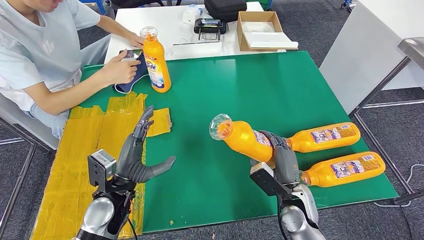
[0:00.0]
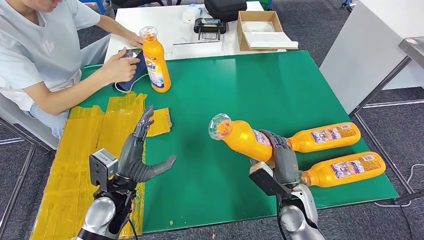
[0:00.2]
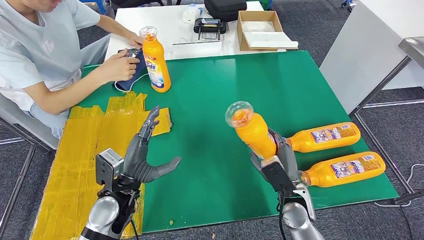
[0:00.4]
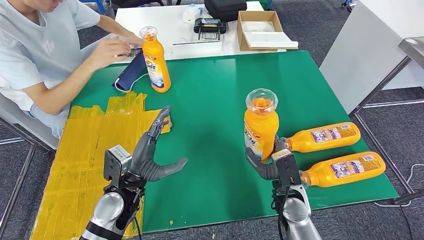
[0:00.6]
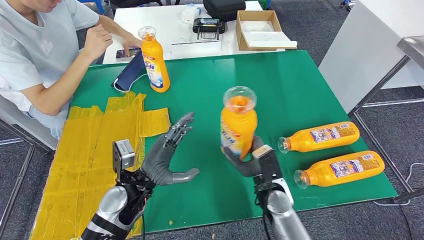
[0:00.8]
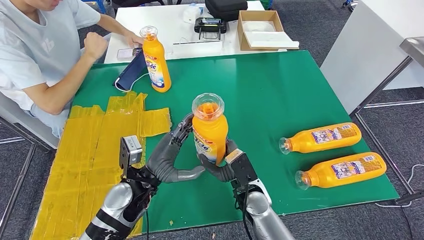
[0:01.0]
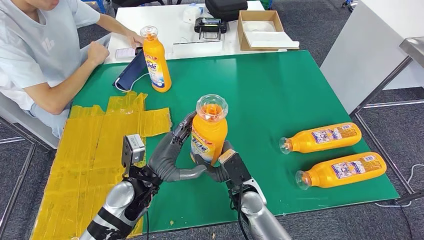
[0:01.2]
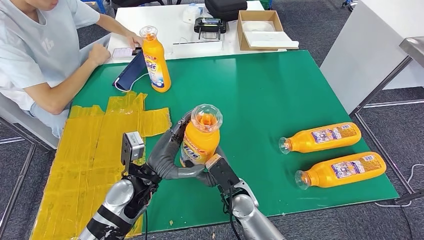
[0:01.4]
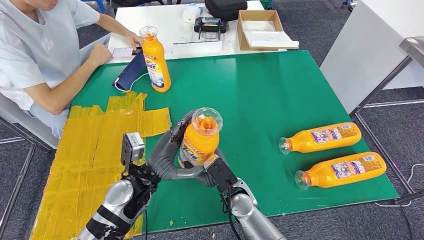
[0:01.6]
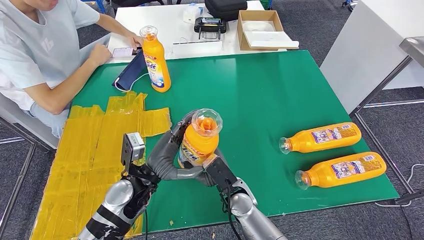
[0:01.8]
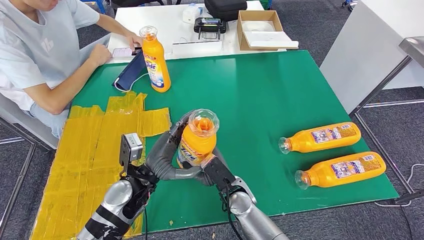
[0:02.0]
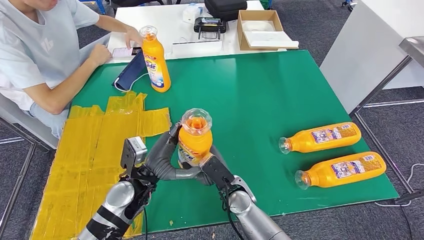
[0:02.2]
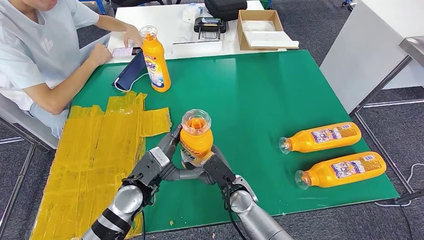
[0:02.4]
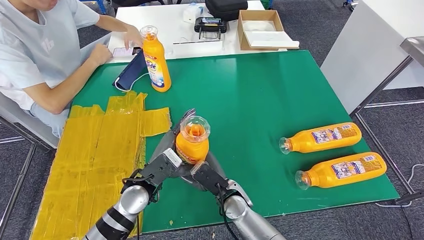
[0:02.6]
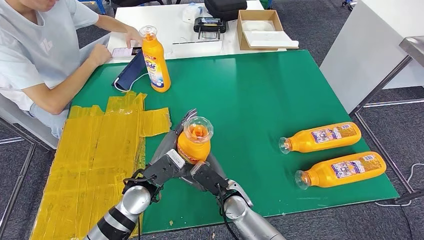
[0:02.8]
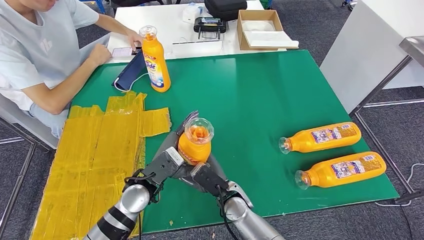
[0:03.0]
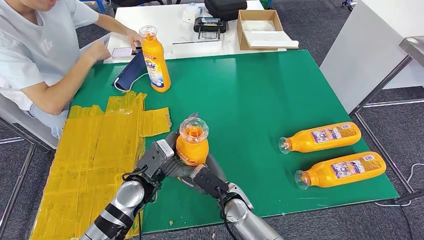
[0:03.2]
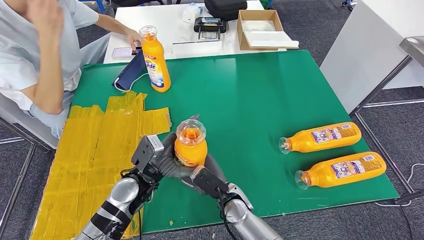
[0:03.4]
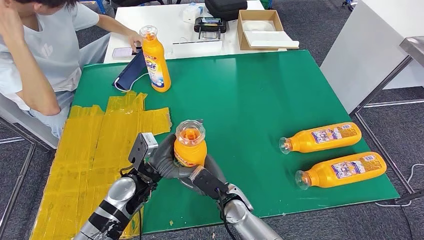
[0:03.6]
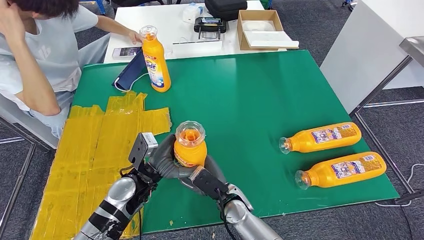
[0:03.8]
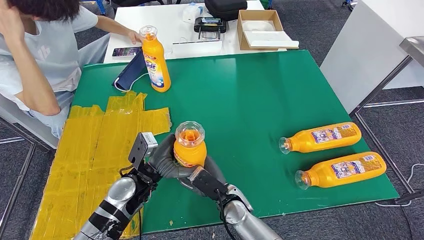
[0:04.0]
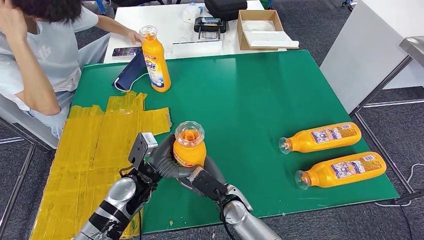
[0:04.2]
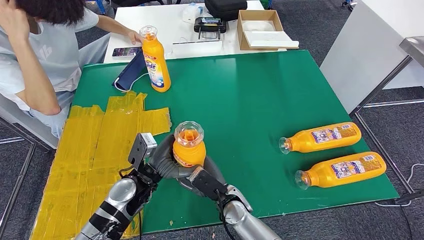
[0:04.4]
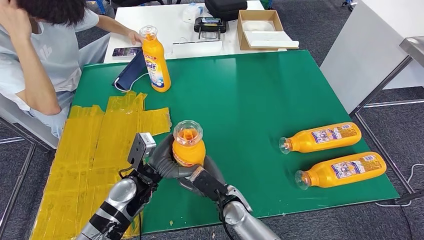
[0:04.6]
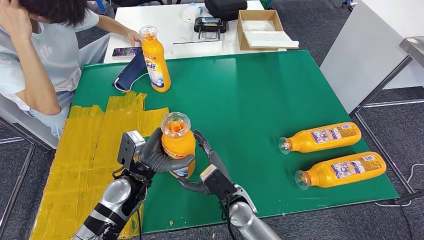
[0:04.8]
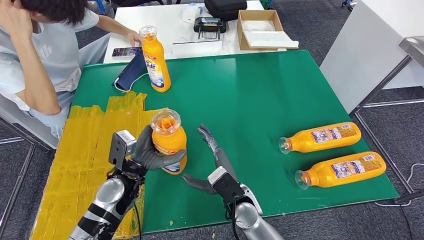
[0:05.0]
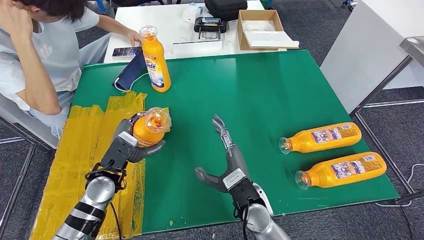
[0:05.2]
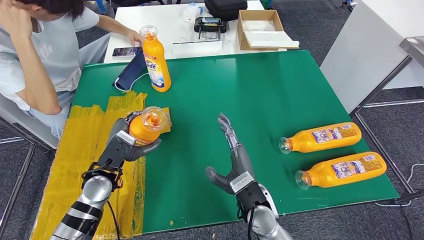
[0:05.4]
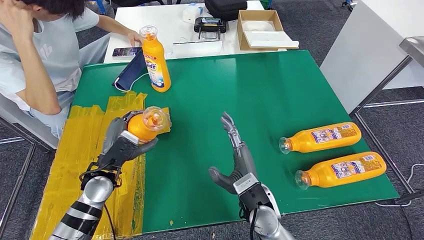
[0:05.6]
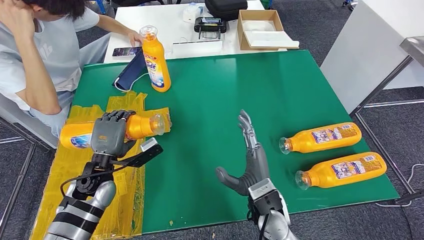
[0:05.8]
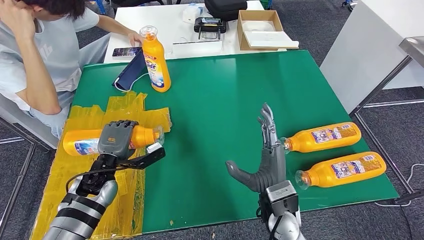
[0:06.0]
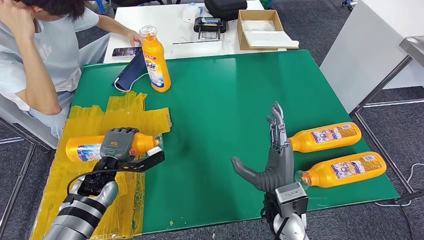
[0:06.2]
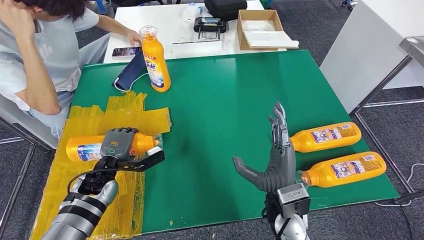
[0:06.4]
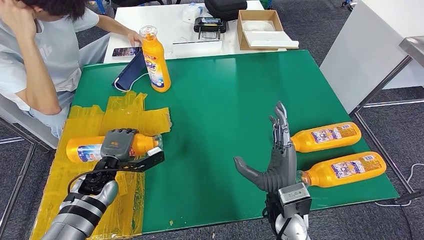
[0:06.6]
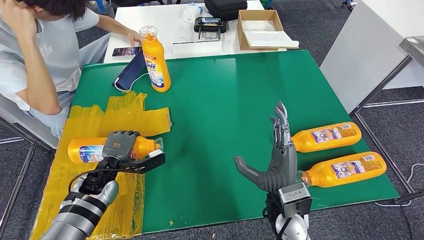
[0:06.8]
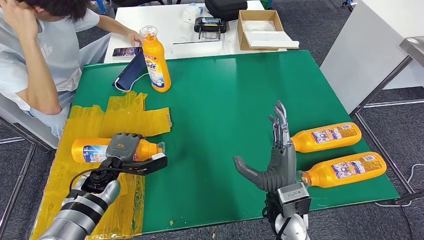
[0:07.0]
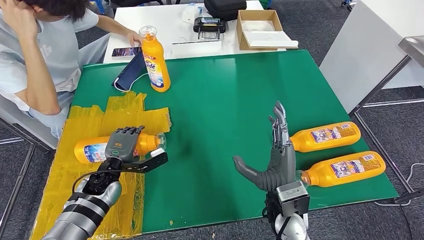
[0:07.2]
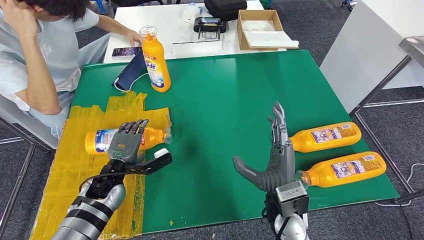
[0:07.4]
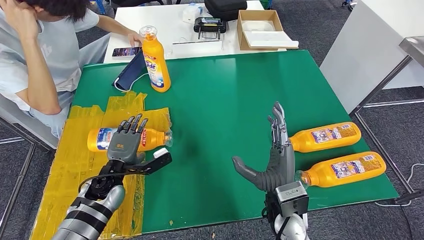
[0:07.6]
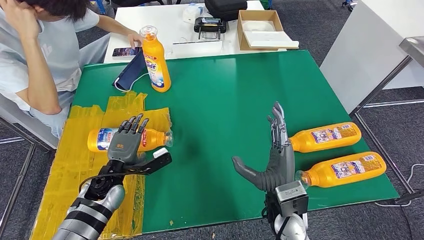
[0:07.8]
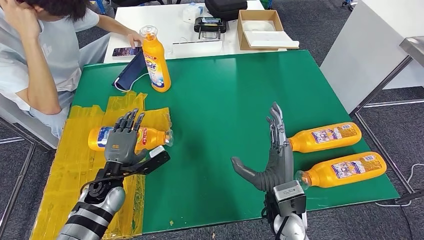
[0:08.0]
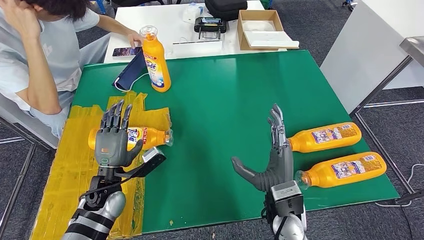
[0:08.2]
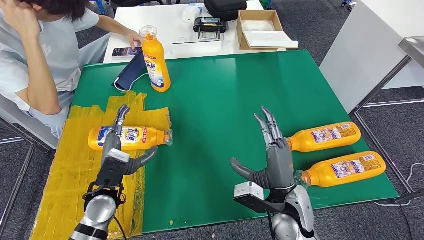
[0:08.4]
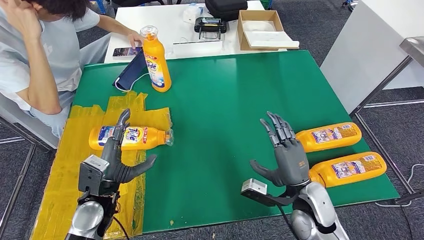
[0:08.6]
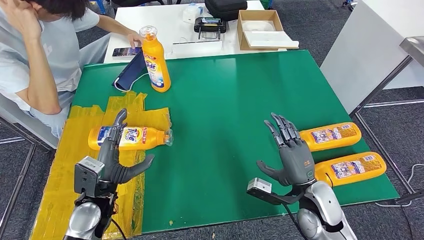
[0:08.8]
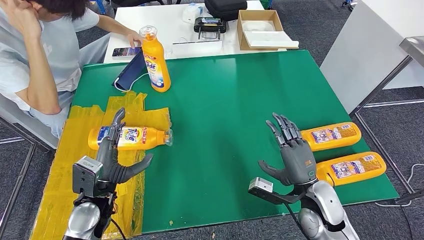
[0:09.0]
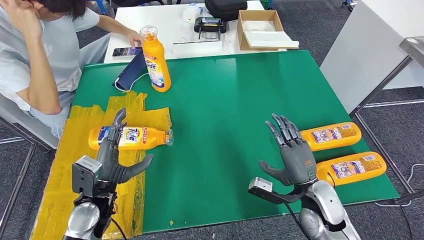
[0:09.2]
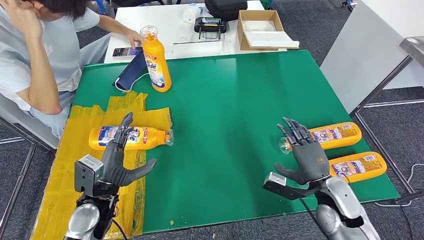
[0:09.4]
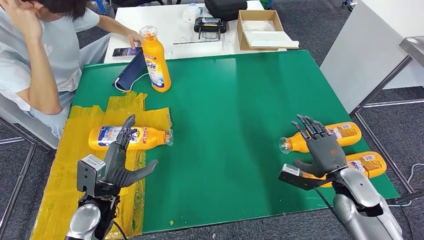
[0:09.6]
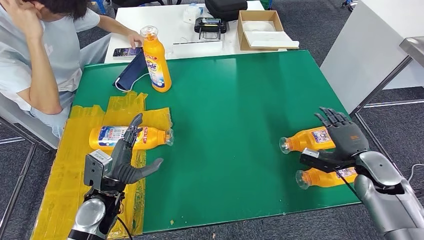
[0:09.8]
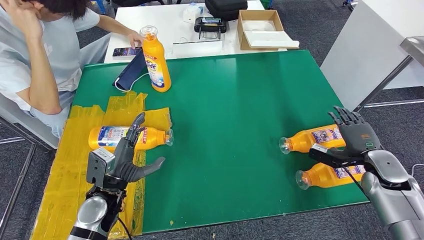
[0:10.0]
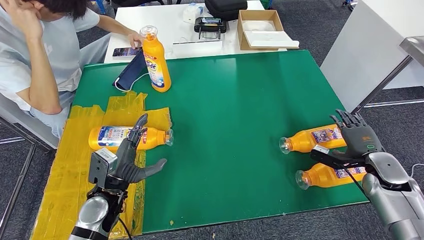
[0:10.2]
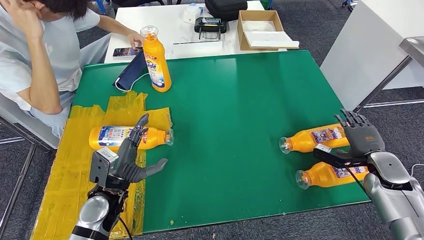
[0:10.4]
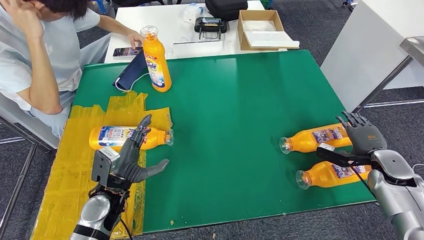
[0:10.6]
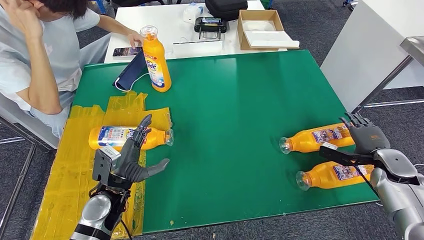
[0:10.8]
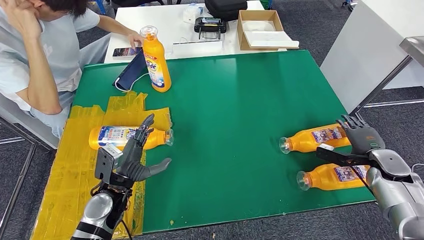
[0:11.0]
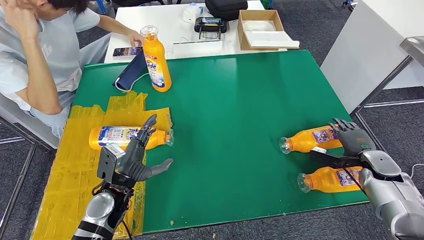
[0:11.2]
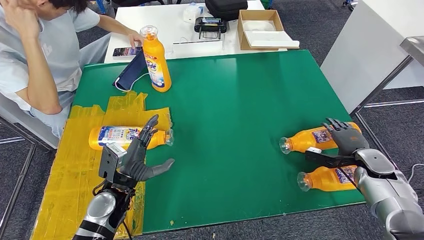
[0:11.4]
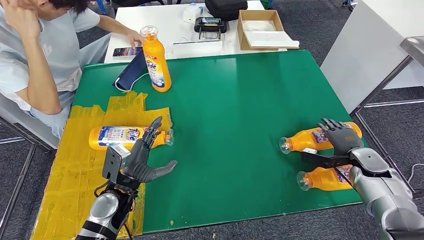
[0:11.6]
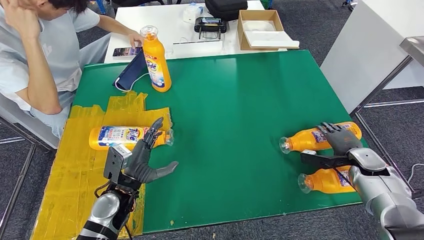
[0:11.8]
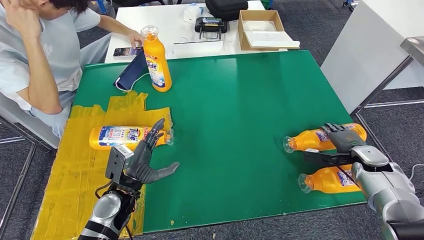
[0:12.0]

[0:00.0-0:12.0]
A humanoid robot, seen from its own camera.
Step, 0:00.6 to 0:08.2: Flip the fast-moving consumer goods bottle to the front side.
0:04.4 to 0:06.0: The right hand is displaced upward and to the right by some 15 cm. Meanwhile the left hand shifts roughly 10 cm to the left.
0:06.0 to 0:07.6: The hands move only a little.
0:07.6 to 0:09.0: The right hand is displaced to the right by roughly 10 cm; the left hand shifts approximately 5 cm backward.
0:09.0 to 0:10.4: The right hand goes about 20 cm to the right.

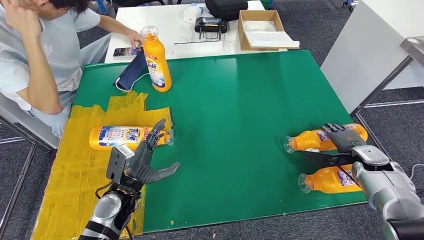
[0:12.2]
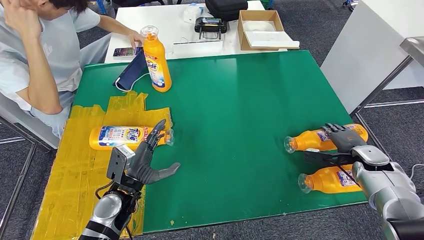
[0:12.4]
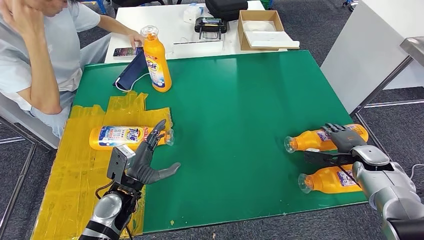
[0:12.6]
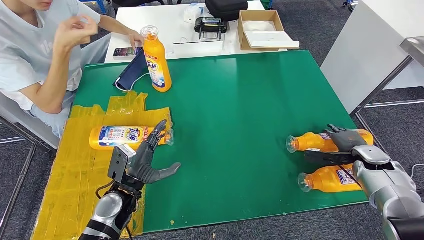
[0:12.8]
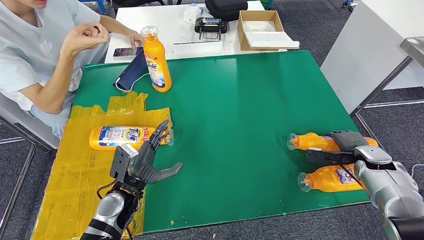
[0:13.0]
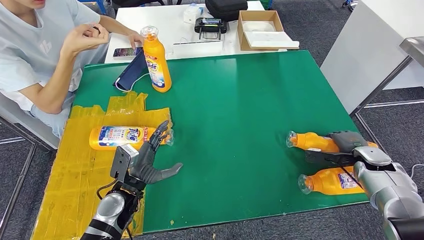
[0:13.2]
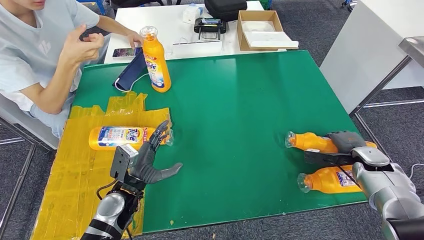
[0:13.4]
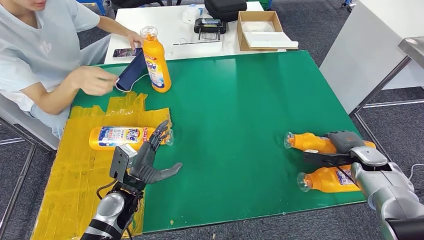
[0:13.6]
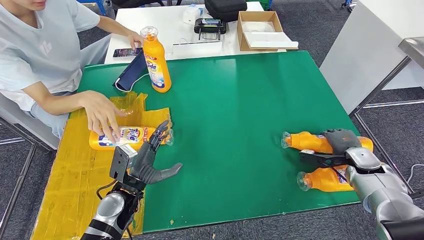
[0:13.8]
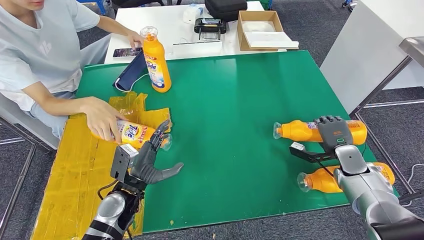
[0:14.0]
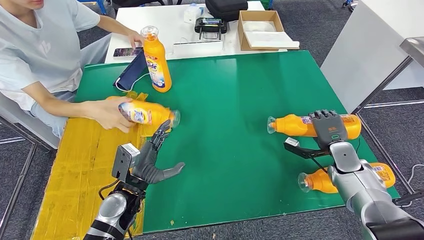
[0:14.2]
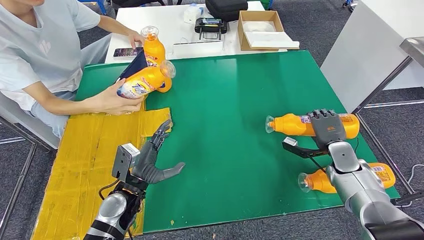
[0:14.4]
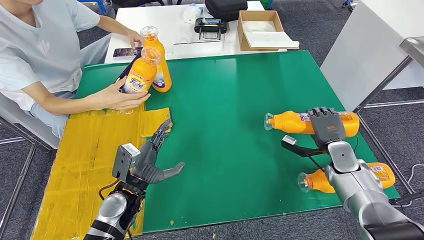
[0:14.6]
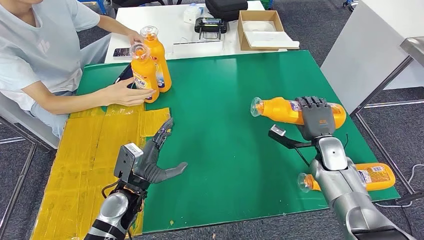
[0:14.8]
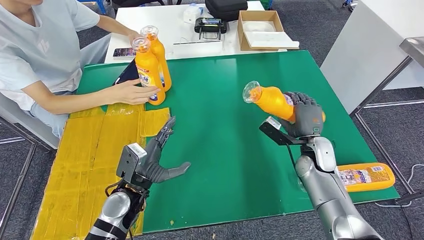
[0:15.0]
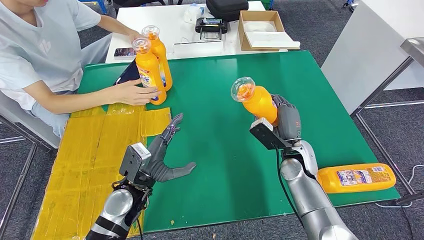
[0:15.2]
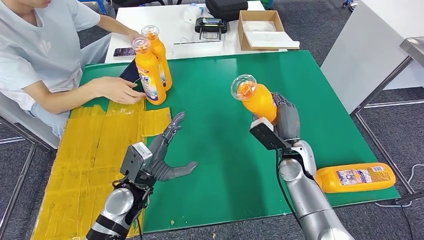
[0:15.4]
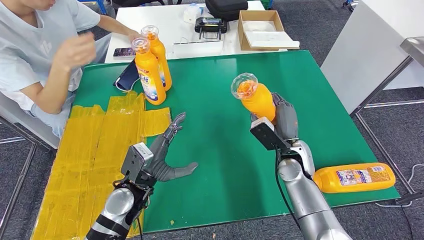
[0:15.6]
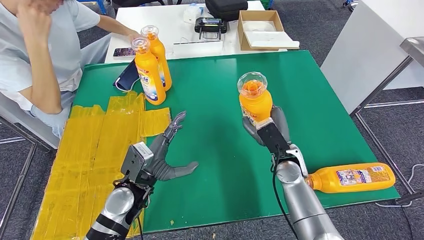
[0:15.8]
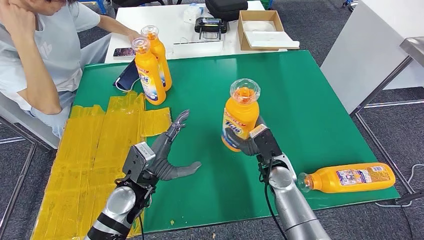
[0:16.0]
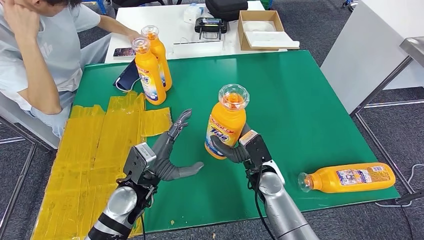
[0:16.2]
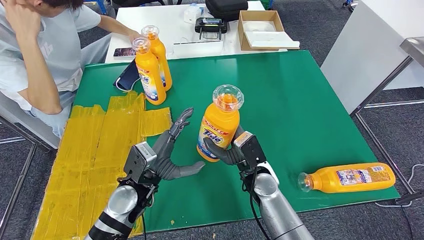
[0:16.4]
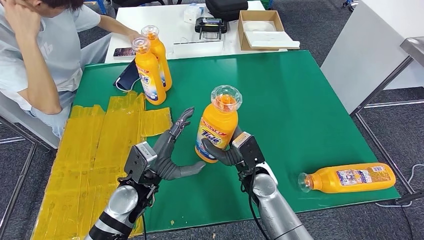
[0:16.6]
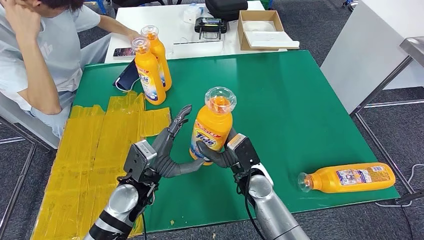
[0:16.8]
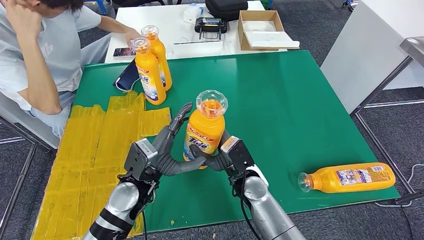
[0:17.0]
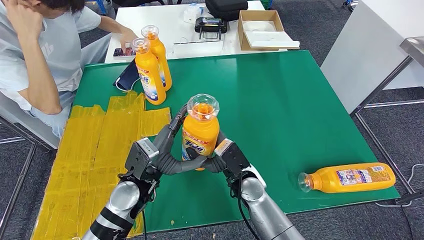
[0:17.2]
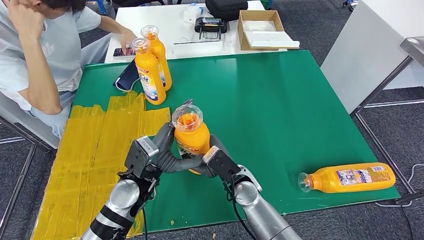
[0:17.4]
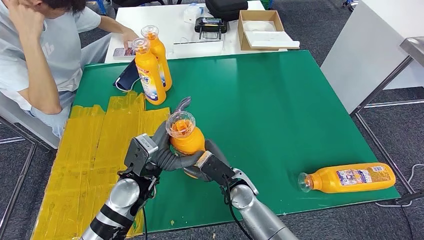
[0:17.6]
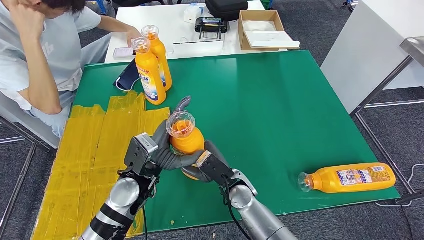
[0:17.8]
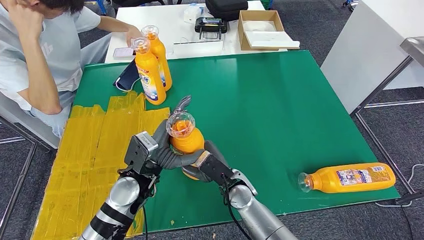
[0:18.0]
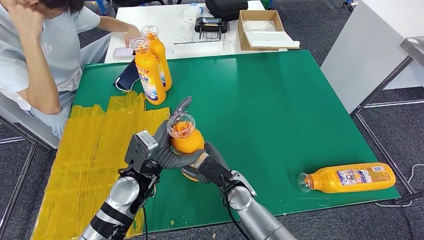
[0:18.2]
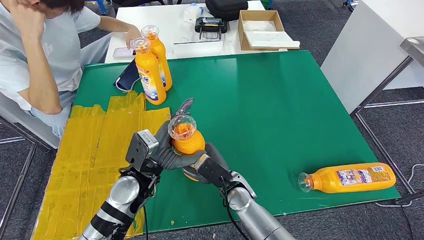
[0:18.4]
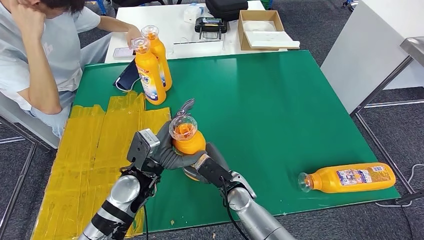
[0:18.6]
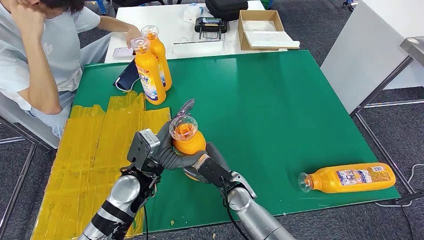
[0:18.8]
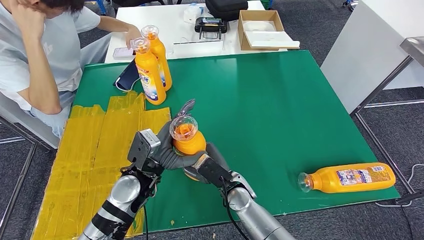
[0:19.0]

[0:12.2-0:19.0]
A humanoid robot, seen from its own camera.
Step, 0:12.2 to 0:15.2: Pick up the fast-moving consumer goods bottle from the table.
0:12.2 to 0:13.6: The hands move only a little.
0:16.2 to 0:17.6: The right hand travels to the left by approximately 5 cm.
0:17.6 to 0:19.0: There are only small adjustments of the hands.
